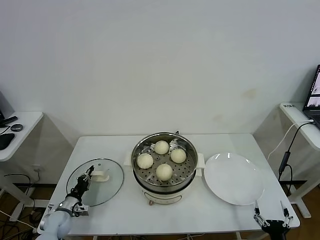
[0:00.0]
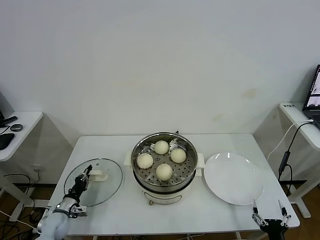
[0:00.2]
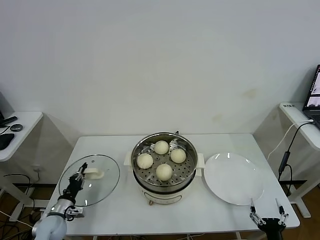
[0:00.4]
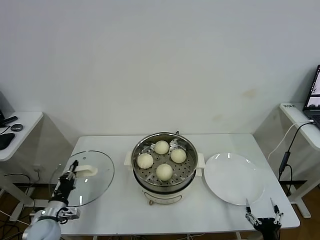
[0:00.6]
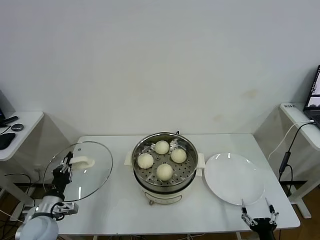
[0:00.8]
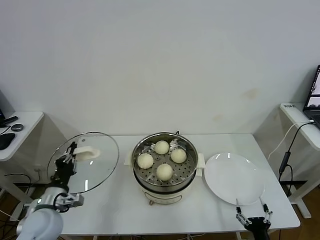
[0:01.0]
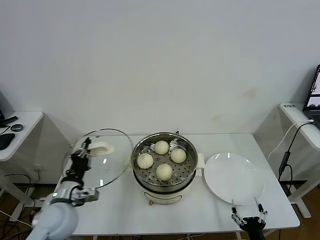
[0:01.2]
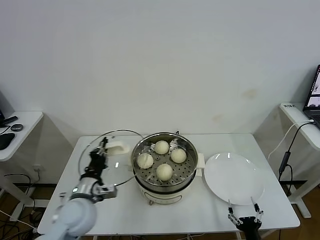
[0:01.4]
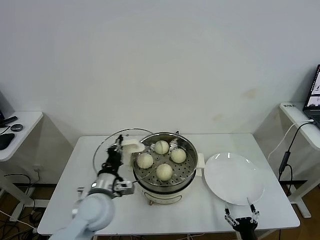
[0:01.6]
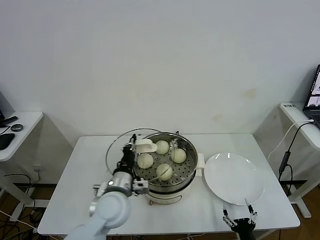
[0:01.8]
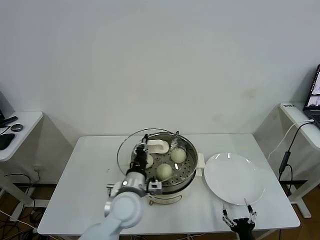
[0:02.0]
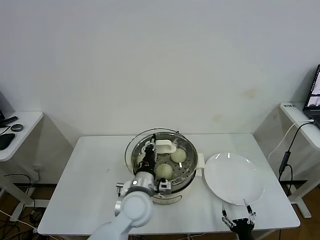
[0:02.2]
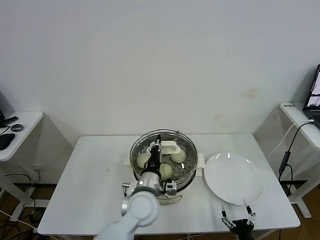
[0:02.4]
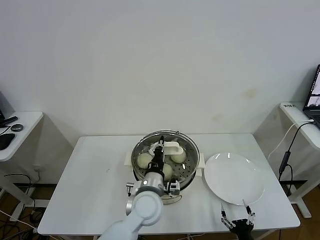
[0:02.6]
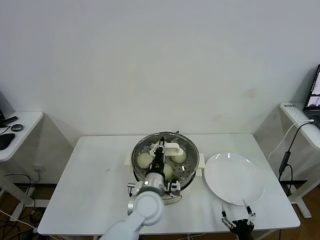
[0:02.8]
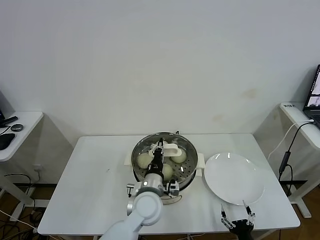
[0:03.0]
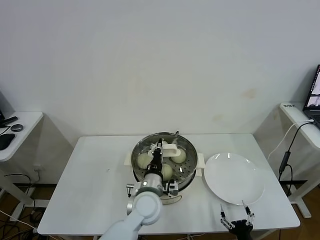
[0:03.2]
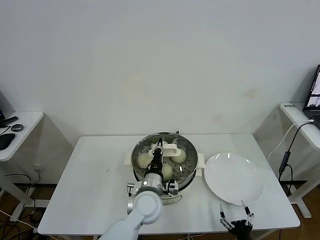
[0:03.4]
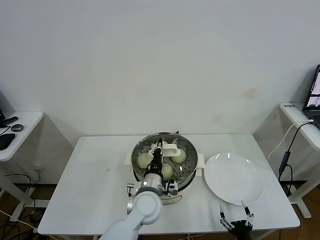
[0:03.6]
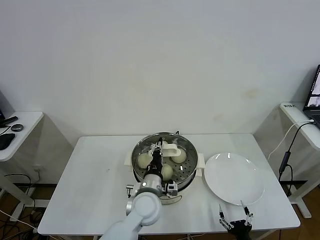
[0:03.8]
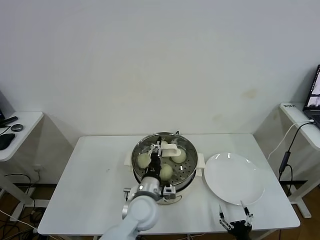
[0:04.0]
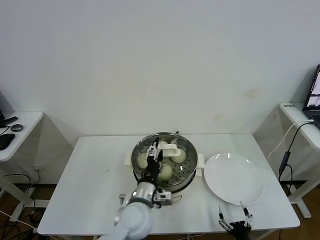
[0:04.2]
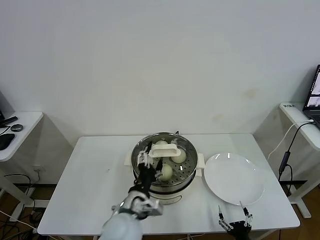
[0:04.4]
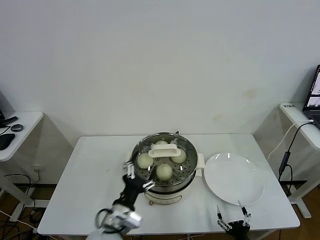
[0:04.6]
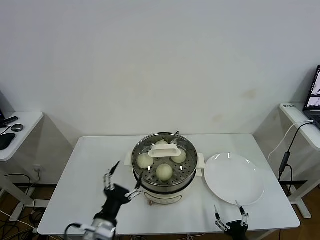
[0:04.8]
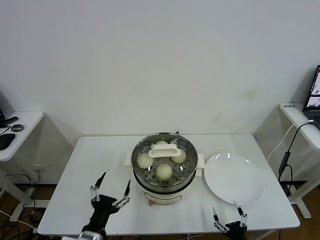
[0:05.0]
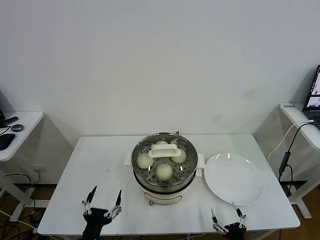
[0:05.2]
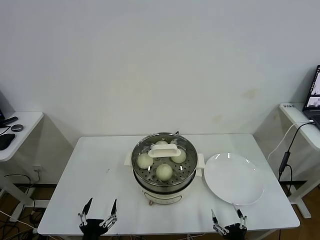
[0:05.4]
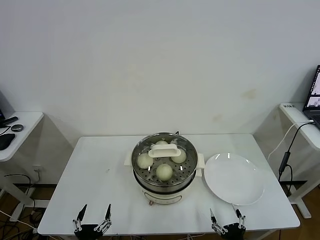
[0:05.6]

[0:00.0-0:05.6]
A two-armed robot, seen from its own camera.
Task of the whole recording: take steamed baozi put them in steamer.
Step, 0:00.4 to 0:04.2: Place the pot lid on the steamer with left gripper.
0:00.0 to 0:01.4: The right gripper goes about 5 cm to the left. The left gripper is displaced upward and to the right by about 25 cm.
0:01.4 to 0:02.8: The left gripper heads to the right, covering some 20 cm.
0:02.8 to 0:04.2: The left gripper opens its fingers.
0:04.2 to 0:05.6: The left gripper travels backward, to the left and downward by some 30 cm, and opens its fingers.

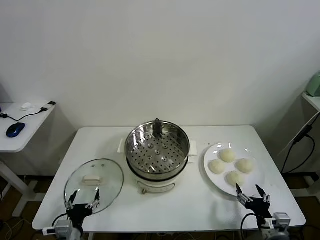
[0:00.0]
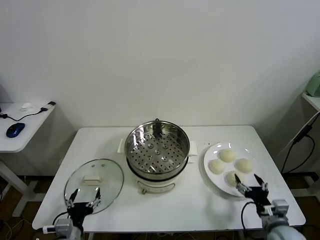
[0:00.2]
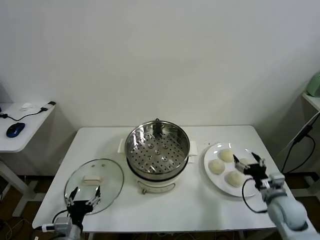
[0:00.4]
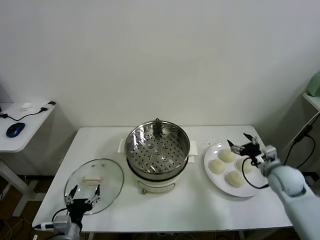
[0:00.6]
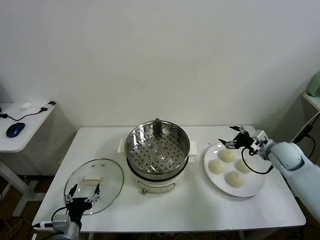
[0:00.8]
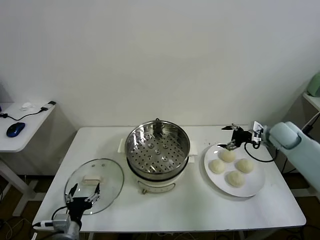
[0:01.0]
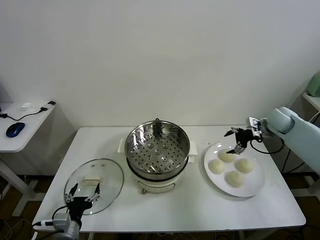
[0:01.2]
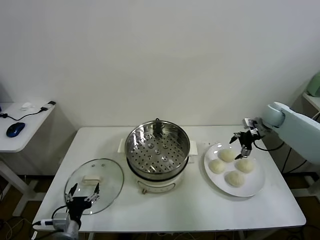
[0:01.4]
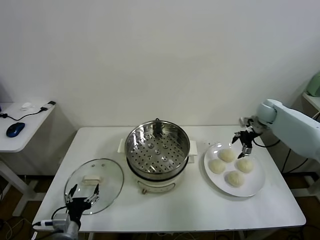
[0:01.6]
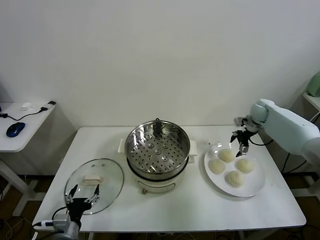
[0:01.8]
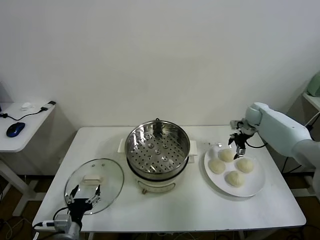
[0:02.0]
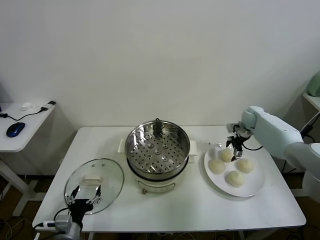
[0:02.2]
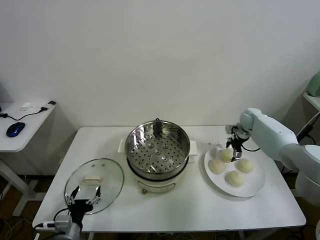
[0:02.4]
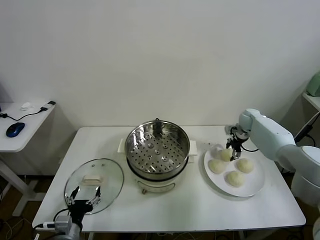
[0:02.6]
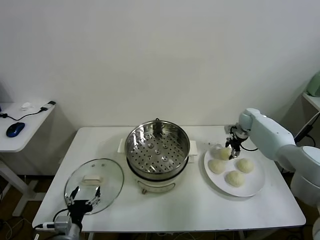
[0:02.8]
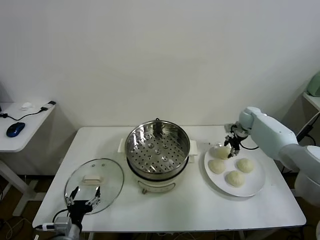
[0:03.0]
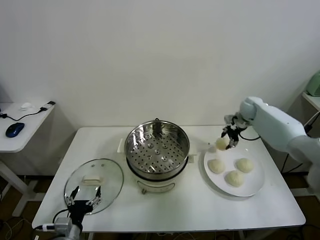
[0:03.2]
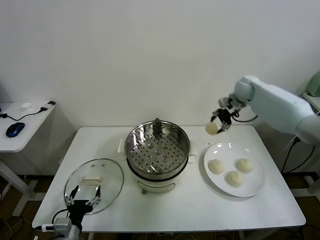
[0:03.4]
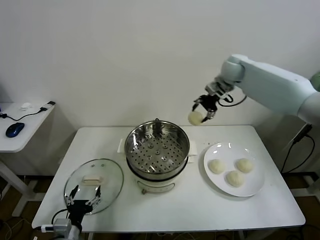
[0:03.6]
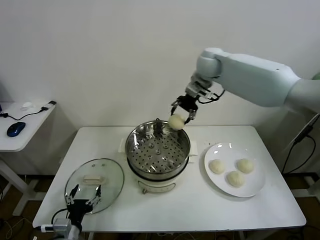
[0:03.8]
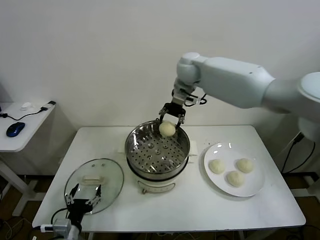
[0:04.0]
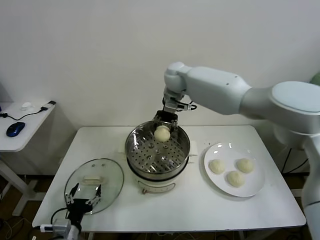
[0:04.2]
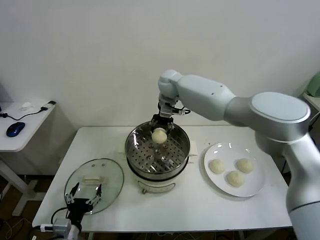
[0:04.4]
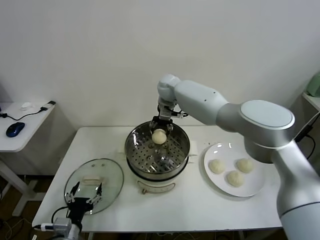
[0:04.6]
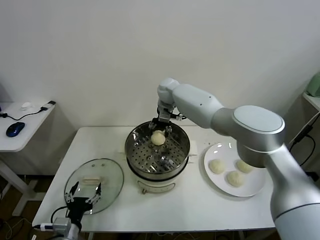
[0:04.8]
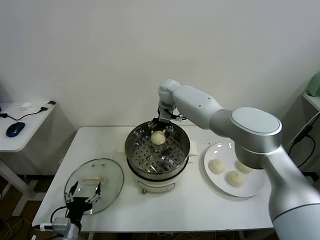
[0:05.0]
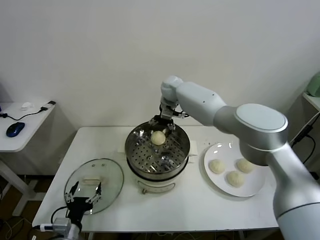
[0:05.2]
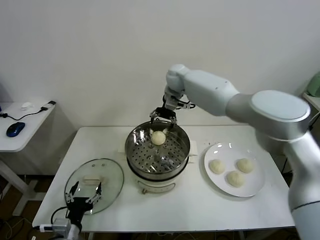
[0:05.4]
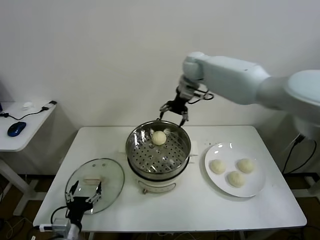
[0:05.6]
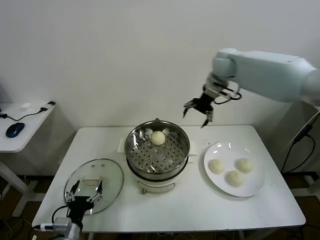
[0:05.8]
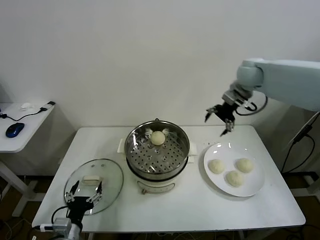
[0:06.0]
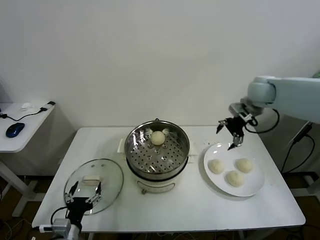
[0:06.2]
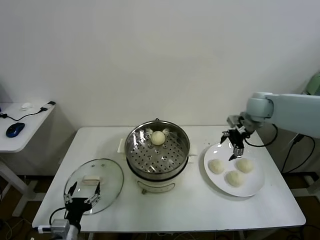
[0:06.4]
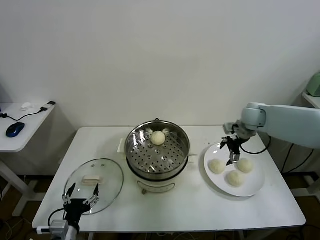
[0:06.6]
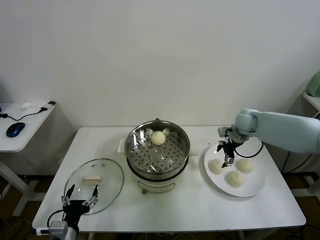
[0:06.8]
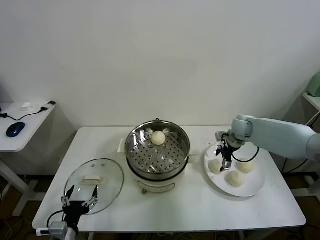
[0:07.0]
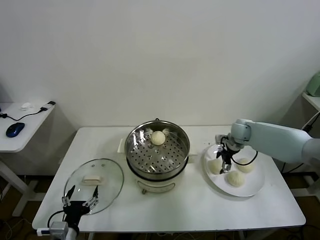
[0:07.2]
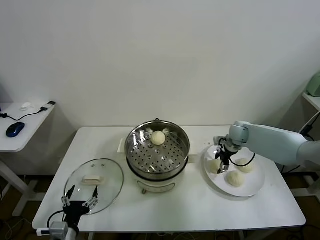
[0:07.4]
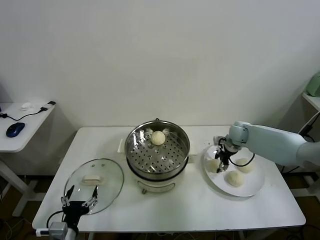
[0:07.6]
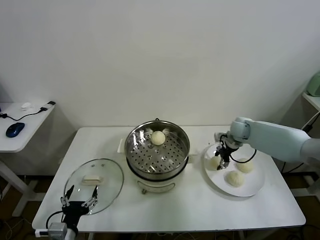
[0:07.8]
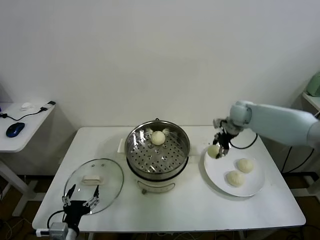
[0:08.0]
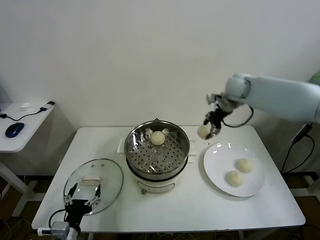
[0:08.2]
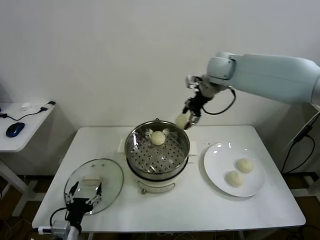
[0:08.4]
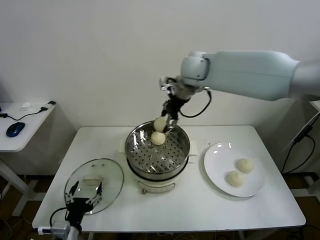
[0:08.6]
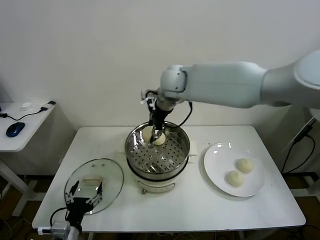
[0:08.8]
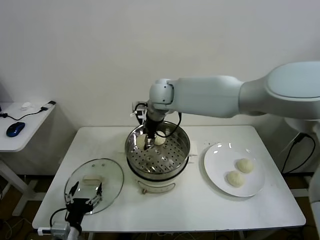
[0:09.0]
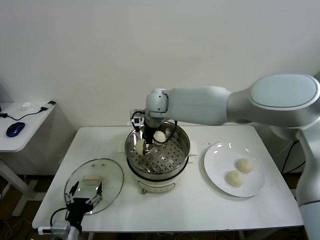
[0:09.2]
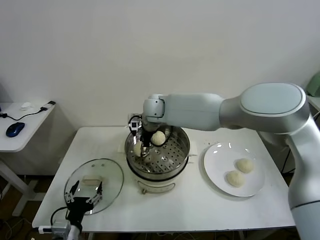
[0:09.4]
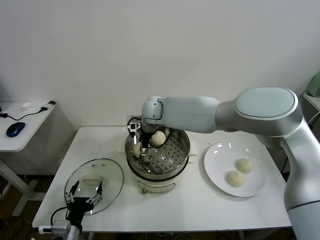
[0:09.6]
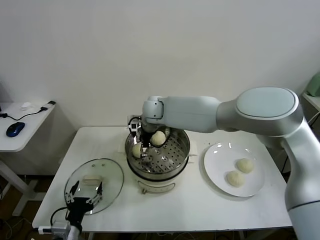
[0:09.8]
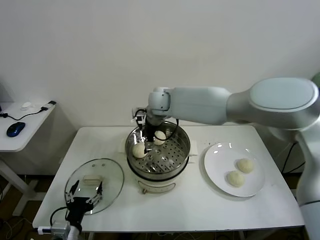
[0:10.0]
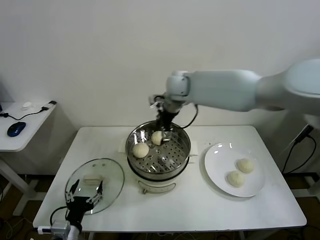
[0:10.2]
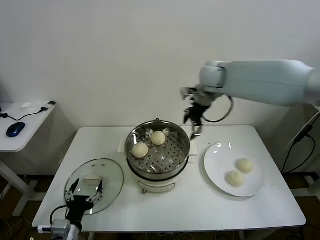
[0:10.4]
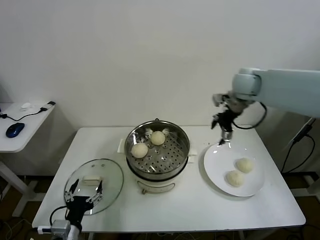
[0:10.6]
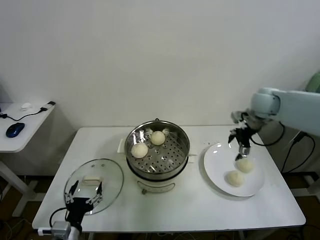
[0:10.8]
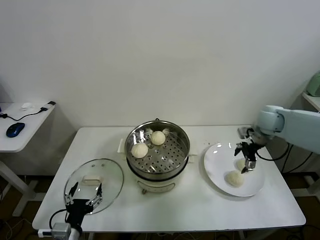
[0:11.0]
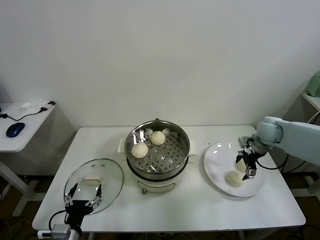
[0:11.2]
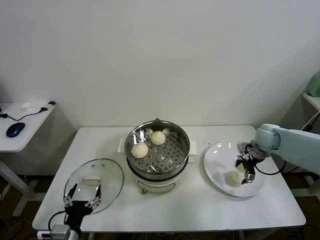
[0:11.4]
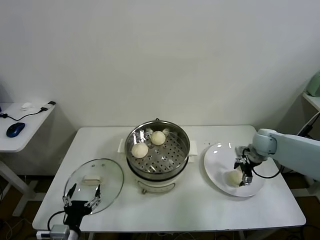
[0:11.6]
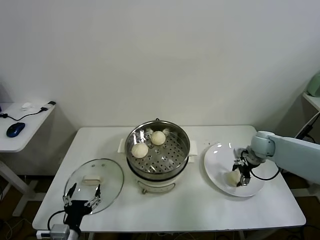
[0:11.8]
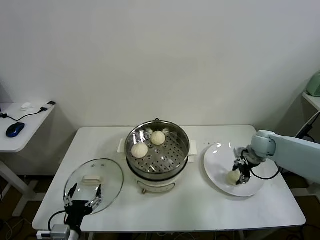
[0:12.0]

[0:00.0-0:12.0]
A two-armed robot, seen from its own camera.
Task of the whole recording: take steamed baozi put them in steamer.
Step, 0:00.0 to 0:02.8: Grasp the baozi in the plate with right gripper.
Step, 0:03.0 to 0:05.2: Place the baozi on the steamer with right gripper.
Step, 0:05.4 to 0:07.6: Grasp the baozi in the plate with right gripper.
Step, 0:07.8 to 0:09.8: Place the baozi on the steamer with right gripper.
0:01.6 to 0:03.0: The right gripper shifts by about 5 cm, and closes.
0:03.0 to 0:04.4: The right gripper is displaced to the left by some 35 cm.
0:04.4 to 0:06.0: The right gripper is displaced to the right by approximately 30 cm, and opens its fingers.
0:06.0 to 0:07.6: The right gripper is displaced downward by about 25 cm, and closes.
0:07.6 to 0:09.0: The right gripper travels to the left and upward by about 40 cm.
0:09.0 to 0:10.4: The right gripper shifts approximately 20 cm to the right, and opens up.
0:10.4 to 0:12.0: The right gripper heads downward and to the right, covering some 30 cm, and closes.

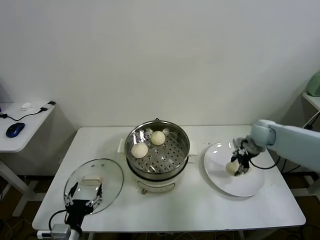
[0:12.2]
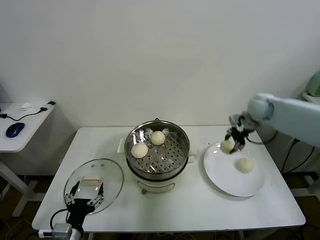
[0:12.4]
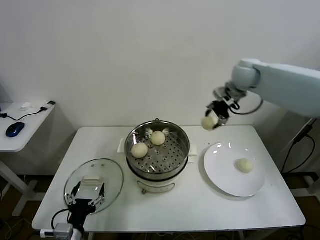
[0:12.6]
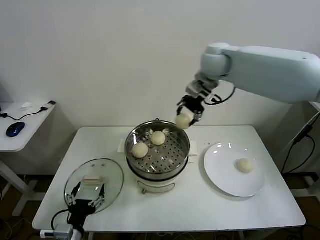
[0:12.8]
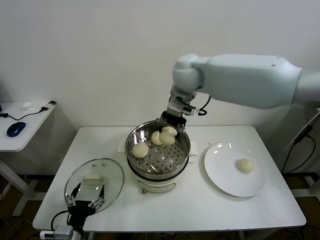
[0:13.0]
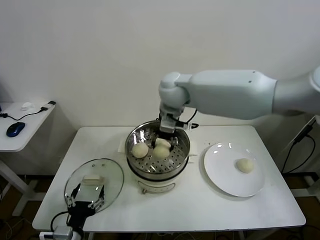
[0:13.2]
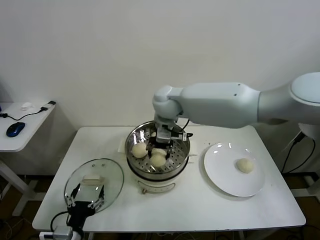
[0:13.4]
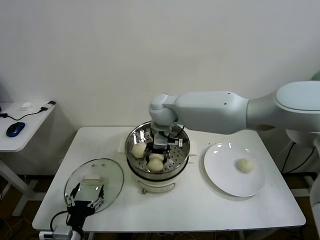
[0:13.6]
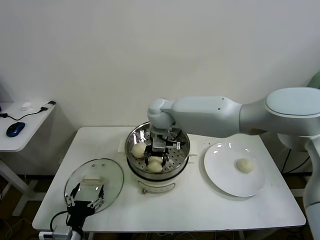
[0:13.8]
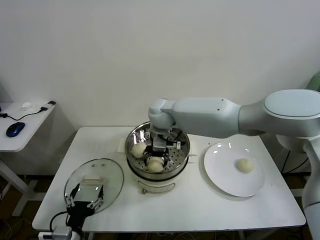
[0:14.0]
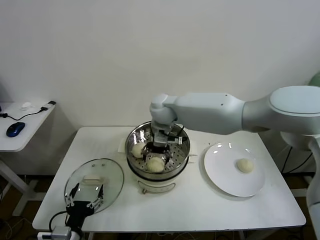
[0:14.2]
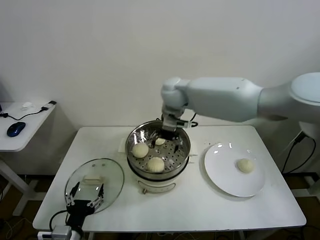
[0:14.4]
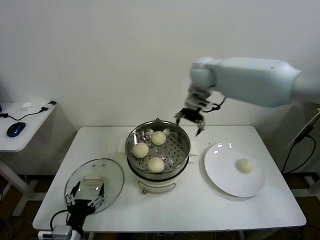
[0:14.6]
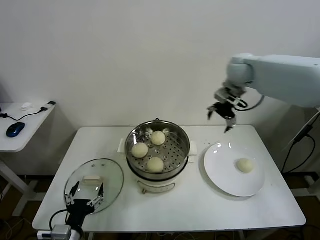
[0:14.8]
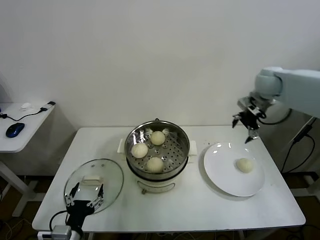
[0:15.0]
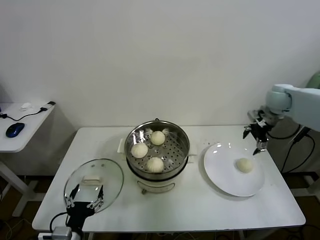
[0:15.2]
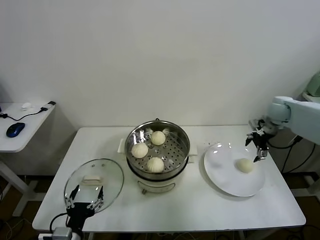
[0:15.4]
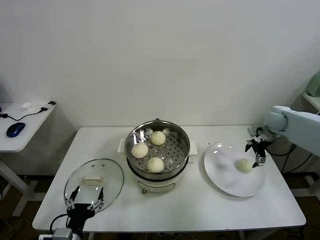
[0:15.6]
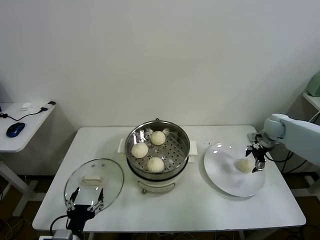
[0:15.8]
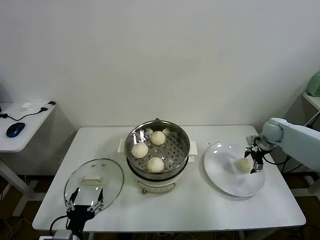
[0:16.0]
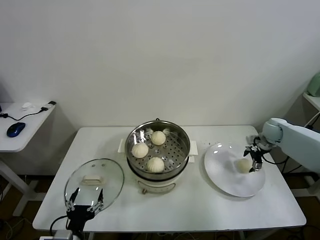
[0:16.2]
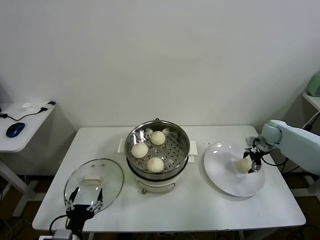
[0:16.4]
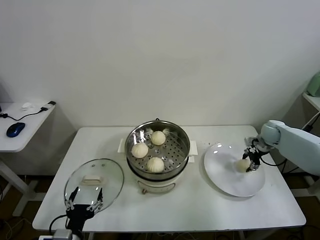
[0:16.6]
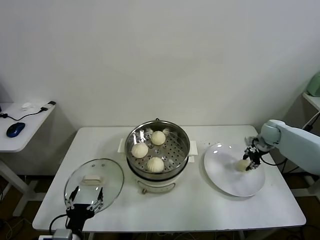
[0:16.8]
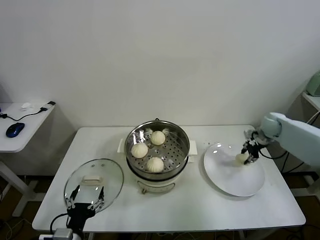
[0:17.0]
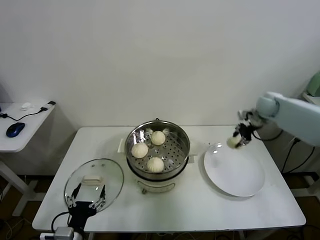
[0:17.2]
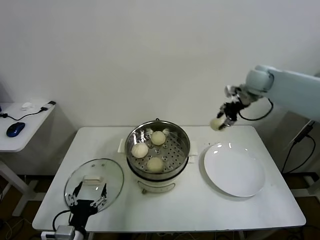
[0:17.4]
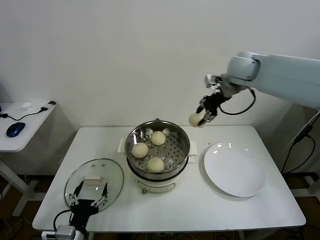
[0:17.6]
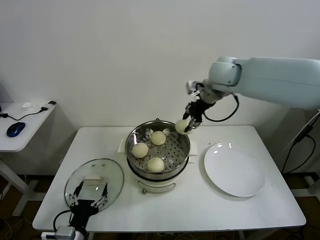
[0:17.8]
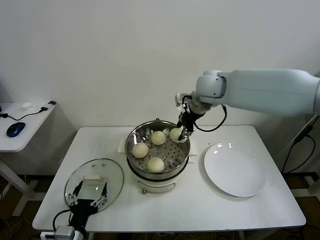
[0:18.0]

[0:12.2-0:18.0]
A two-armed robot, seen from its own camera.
Task of the whole recording: take steamed baozi put them in steamer.
Step, 0:12.4 to 0:14.2: Place the baozi on the steamer with right gripper.
Step, 0:14.4 to 0:16.4: Grasp the baozi in the plate with right gripper.
0:12.2 to 0:13.6: The right gripper travels to the left by some 35 cm.
0:13.6 to 0:15.0: The right gripper heads to the right, covering roughly 35 cm, and opens its fingers.
0:15.0 to 0:16.6: The right gripper moves downward, some 20 cm, and closes its fingers.
0:16.6 to 0:18.0: The right gripper goes approximately 40 cm to the left and upward, and closes.
